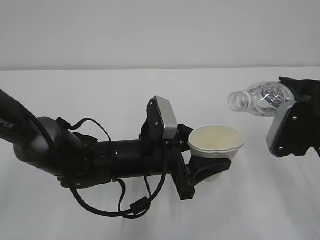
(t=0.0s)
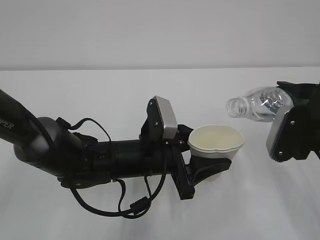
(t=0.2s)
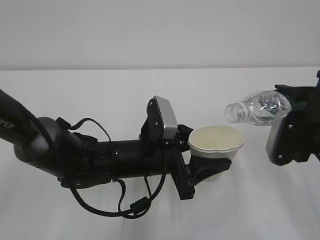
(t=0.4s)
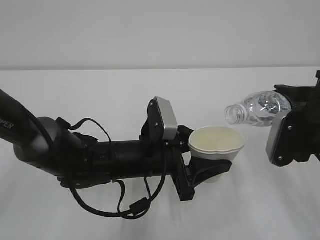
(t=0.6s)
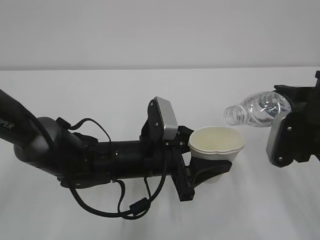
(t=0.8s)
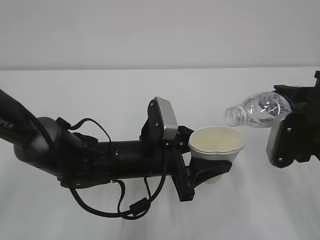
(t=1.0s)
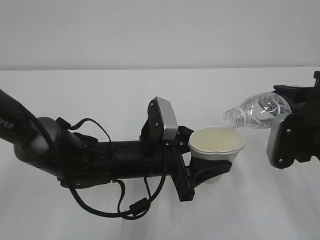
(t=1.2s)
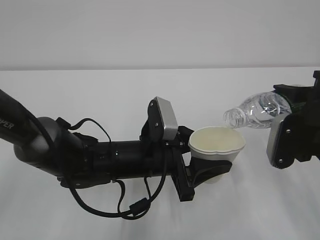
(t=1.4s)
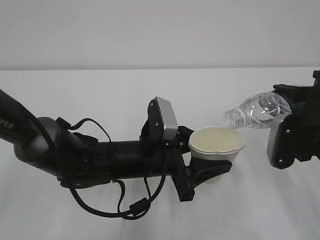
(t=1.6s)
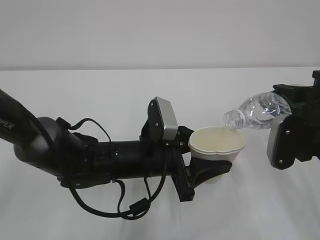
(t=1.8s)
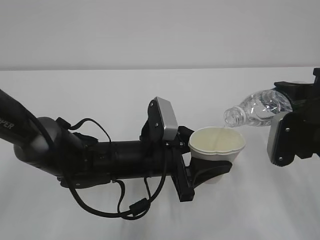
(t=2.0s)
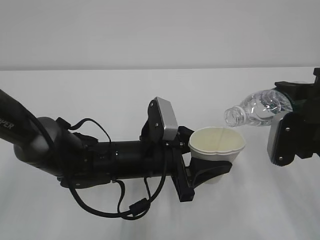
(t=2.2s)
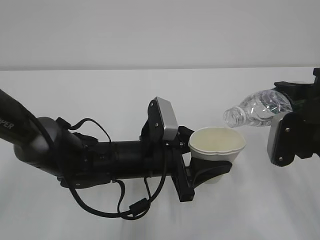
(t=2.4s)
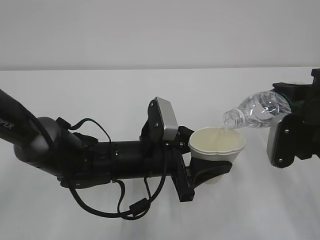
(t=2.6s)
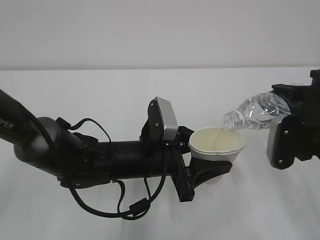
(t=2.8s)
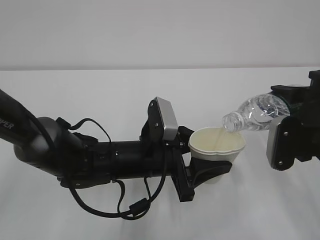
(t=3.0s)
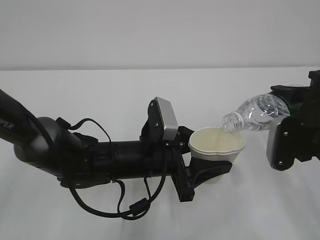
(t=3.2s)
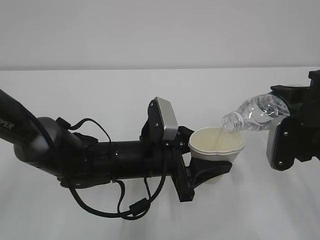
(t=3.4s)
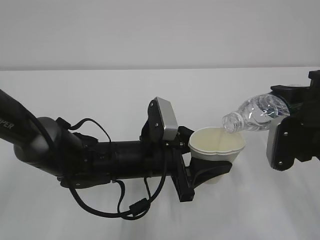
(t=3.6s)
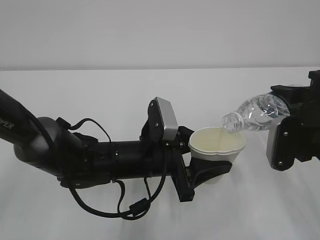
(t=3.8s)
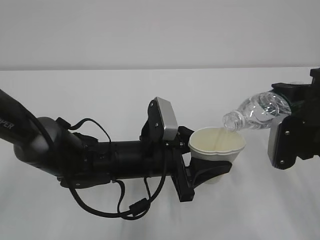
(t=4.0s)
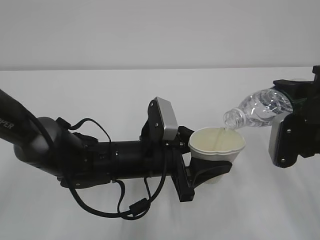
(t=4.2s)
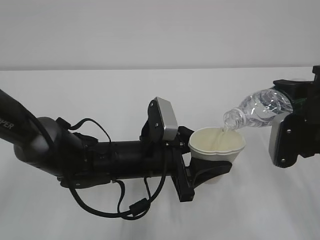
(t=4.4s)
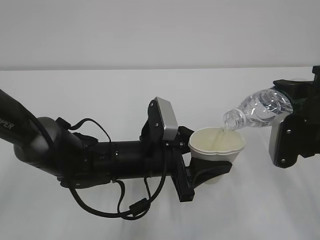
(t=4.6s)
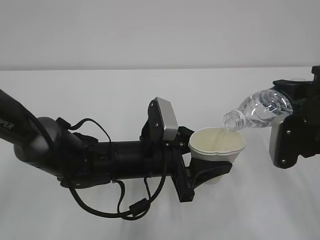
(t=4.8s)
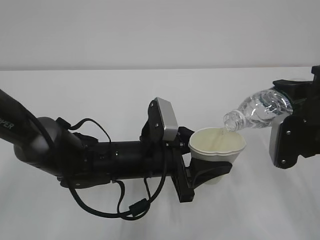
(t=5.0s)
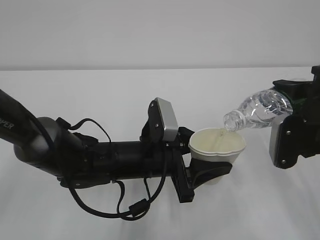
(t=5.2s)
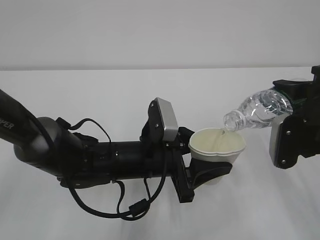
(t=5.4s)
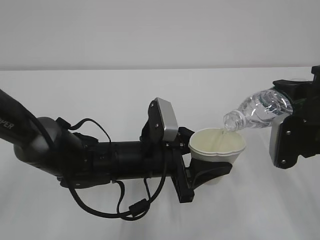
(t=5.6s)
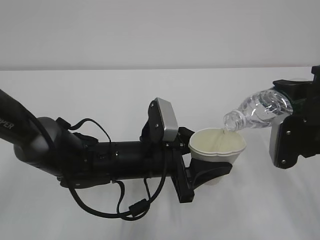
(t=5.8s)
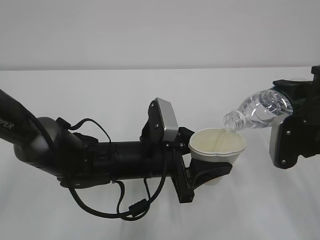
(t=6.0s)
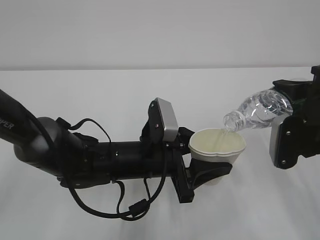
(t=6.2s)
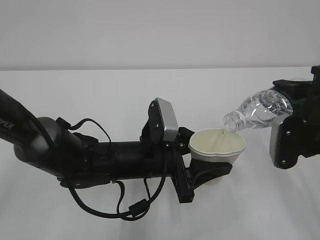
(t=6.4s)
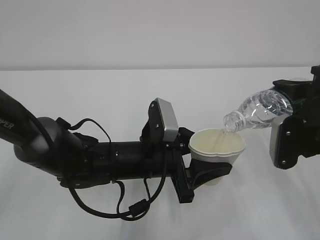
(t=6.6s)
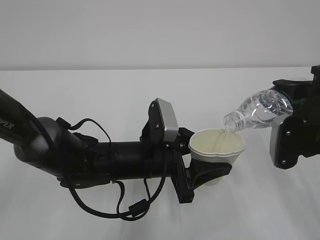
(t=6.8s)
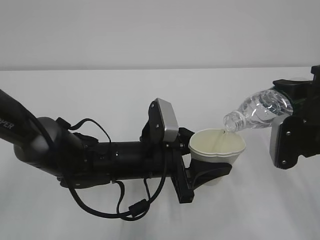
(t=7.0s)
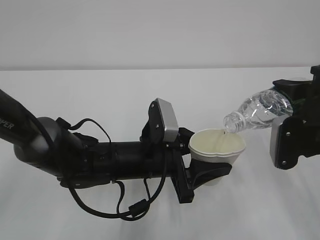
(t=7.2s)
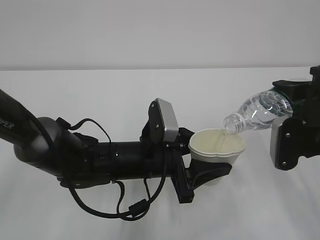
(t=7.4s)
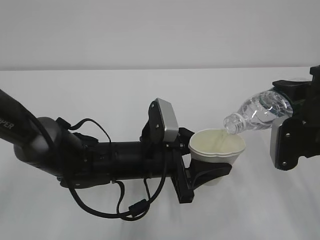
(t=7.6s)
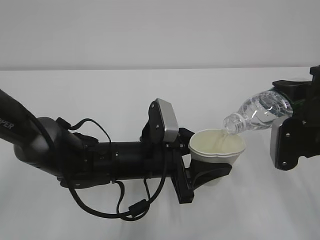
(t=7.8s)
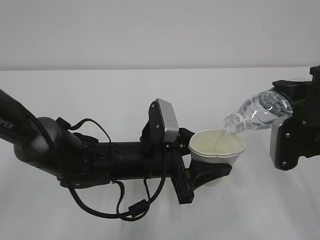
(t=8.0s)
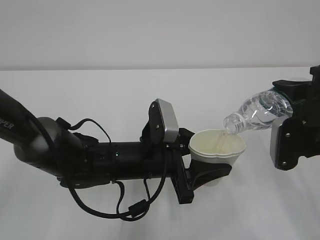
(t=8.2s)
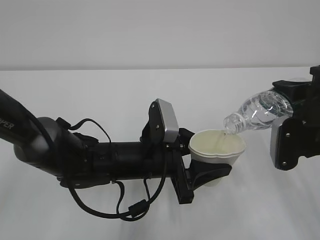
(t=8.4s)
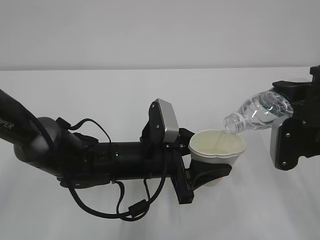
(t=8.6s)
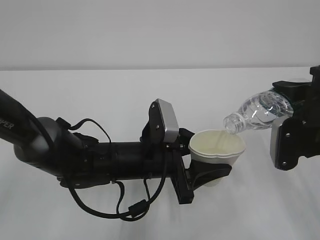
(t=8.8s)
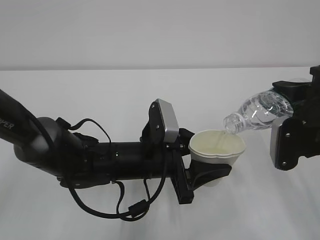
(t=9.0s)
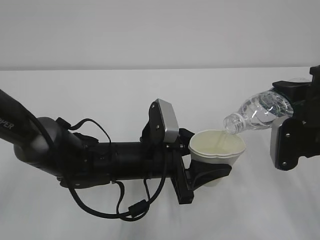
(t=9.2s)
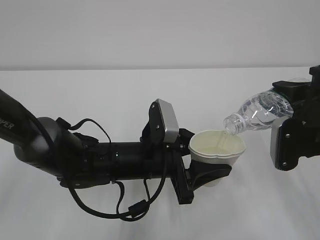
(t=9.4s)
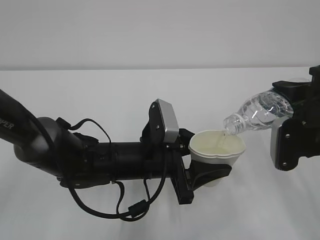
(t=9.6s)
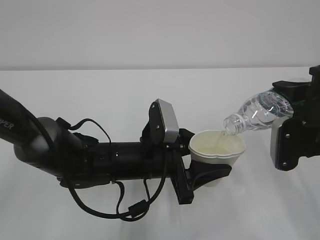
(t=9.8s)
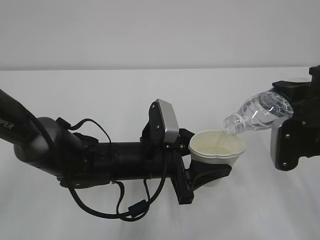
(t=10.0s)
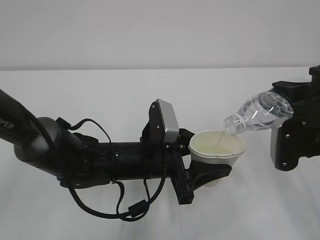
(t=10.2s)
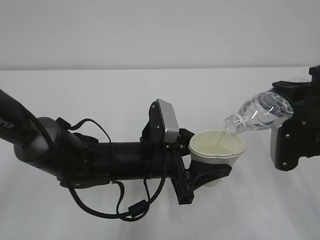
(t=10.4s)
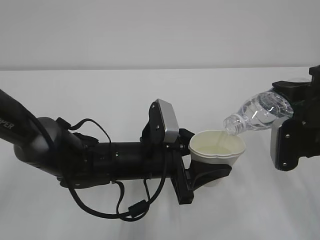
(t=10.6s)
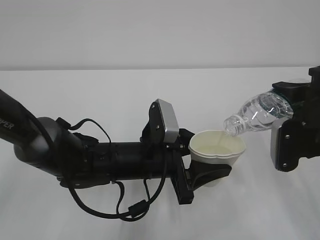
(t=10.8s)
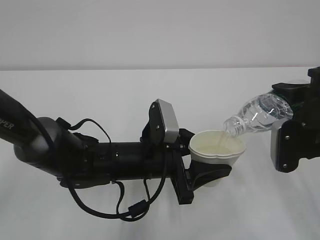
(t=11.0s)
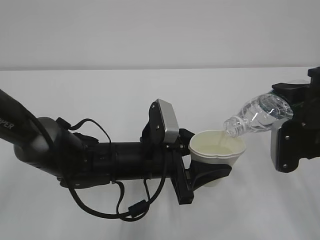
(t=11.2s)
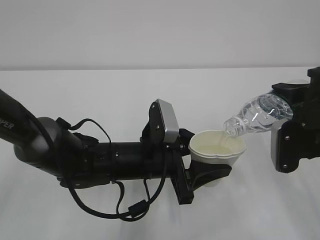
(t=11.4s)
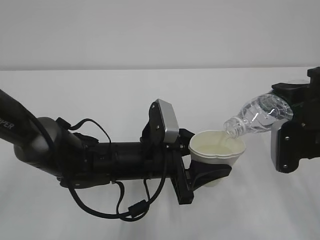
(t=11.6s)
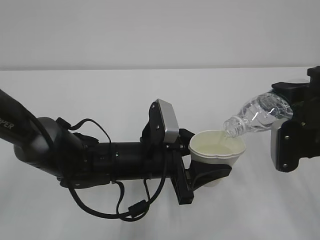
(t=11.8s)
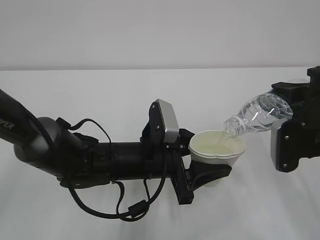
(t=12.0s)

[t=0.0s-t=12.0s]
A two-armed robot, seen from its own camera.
t=0.0s to t=1.6s: The grippers stay close to where they were, moving slightly.
t=1.6s to t=4.4s: The two grippers keep their place.
t=4.4s to t=10.4s: Neither gripper changes place.
t=10.4s to t=12.0s: Both grippers stay about where they are.

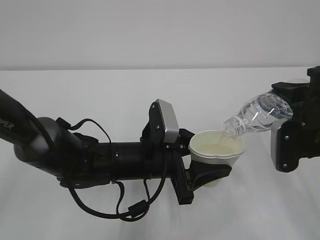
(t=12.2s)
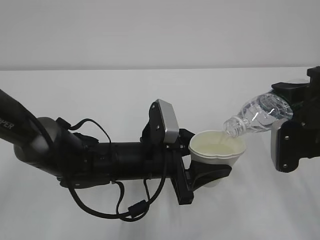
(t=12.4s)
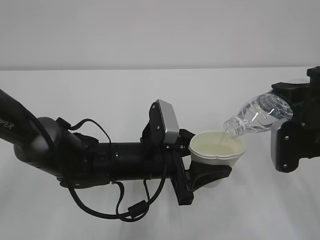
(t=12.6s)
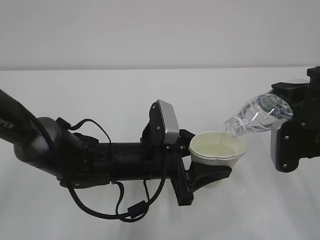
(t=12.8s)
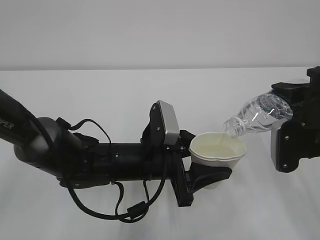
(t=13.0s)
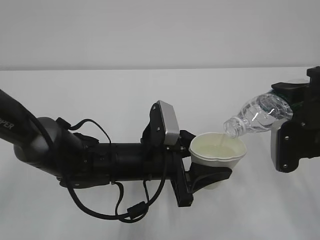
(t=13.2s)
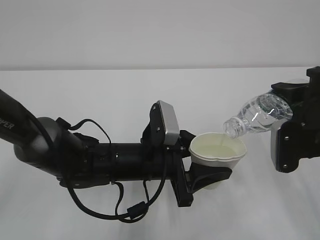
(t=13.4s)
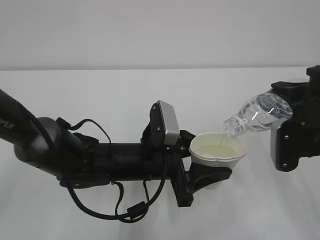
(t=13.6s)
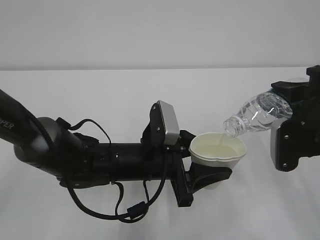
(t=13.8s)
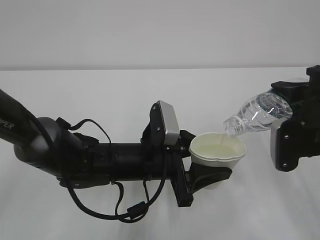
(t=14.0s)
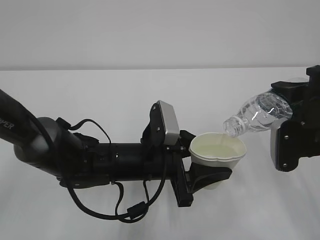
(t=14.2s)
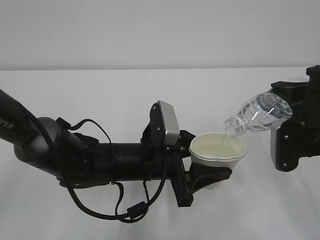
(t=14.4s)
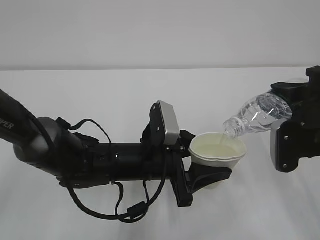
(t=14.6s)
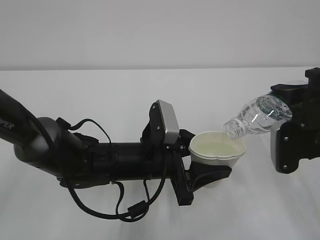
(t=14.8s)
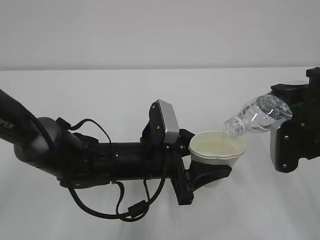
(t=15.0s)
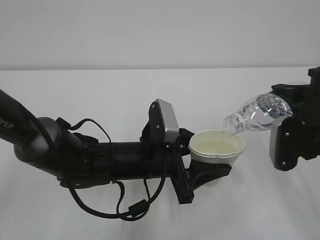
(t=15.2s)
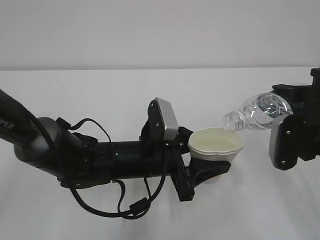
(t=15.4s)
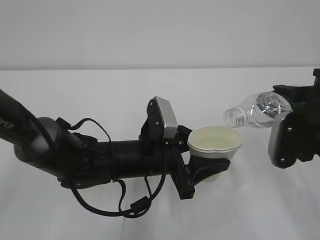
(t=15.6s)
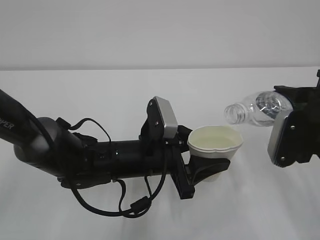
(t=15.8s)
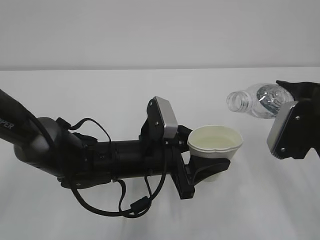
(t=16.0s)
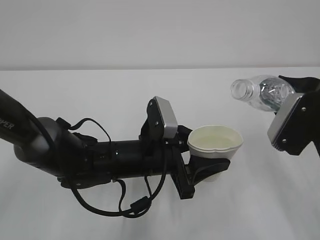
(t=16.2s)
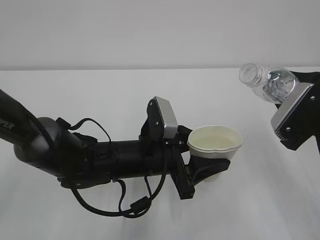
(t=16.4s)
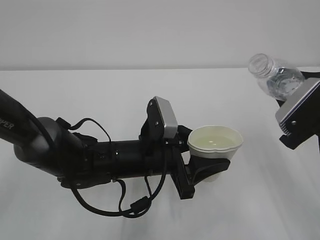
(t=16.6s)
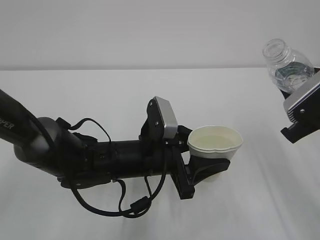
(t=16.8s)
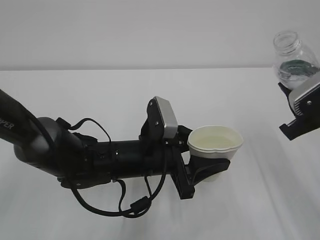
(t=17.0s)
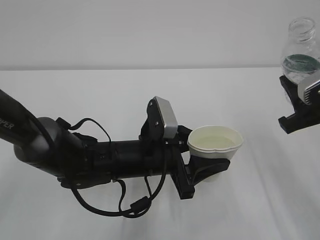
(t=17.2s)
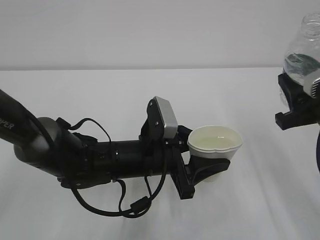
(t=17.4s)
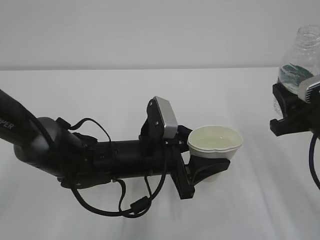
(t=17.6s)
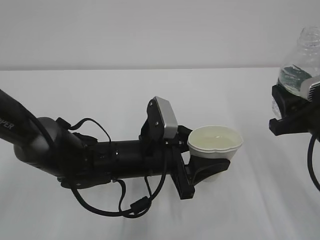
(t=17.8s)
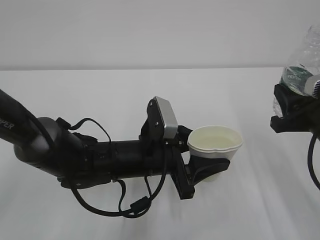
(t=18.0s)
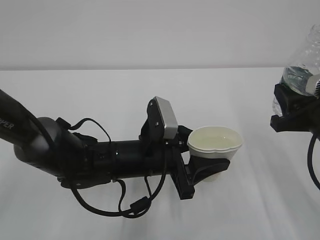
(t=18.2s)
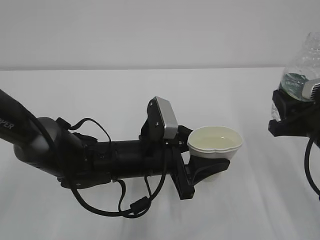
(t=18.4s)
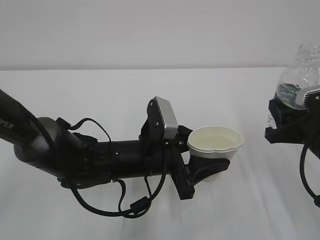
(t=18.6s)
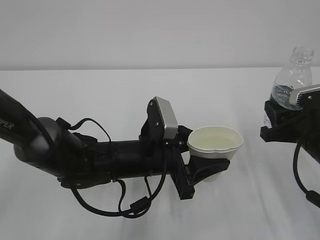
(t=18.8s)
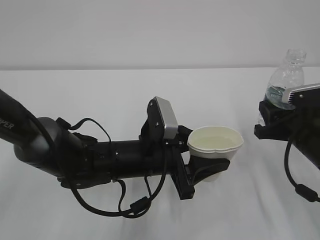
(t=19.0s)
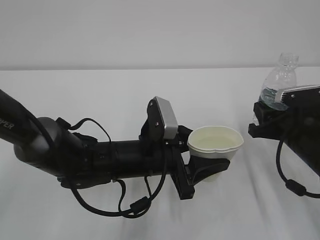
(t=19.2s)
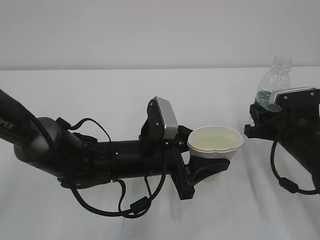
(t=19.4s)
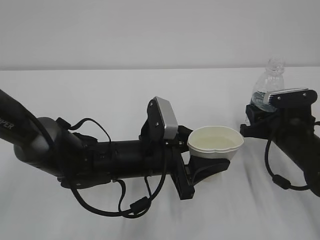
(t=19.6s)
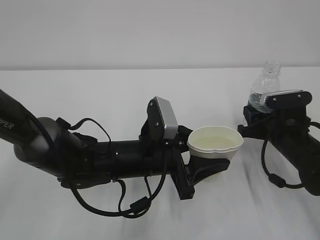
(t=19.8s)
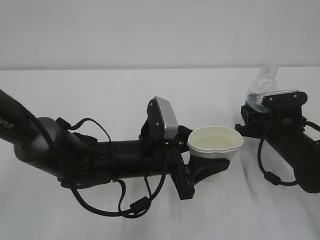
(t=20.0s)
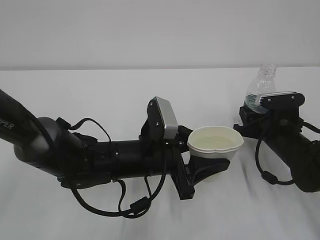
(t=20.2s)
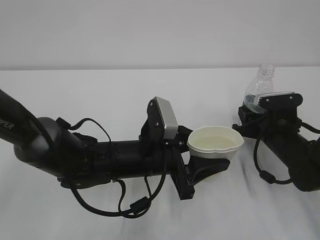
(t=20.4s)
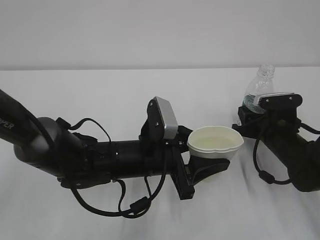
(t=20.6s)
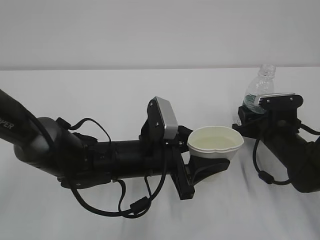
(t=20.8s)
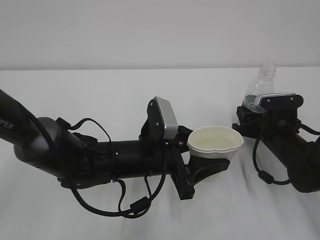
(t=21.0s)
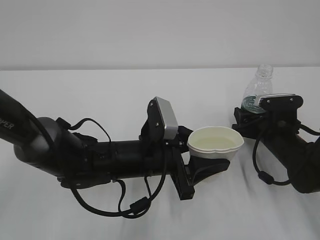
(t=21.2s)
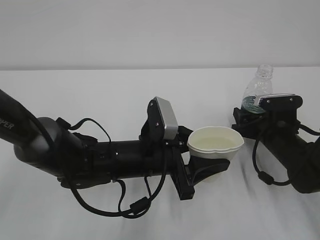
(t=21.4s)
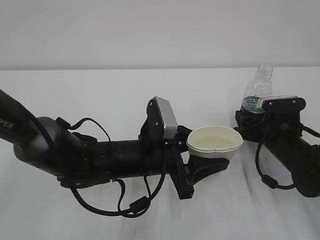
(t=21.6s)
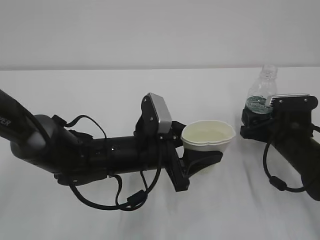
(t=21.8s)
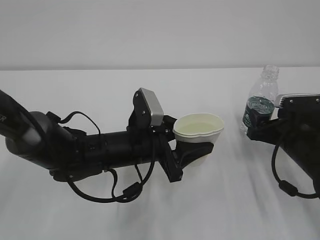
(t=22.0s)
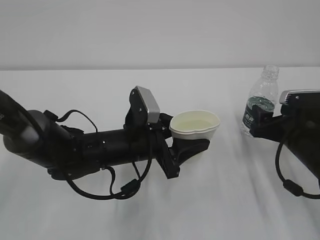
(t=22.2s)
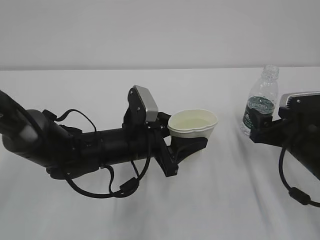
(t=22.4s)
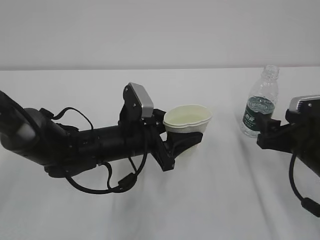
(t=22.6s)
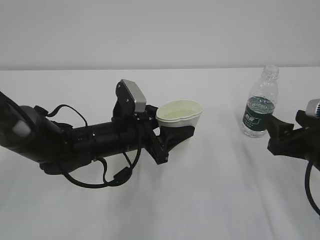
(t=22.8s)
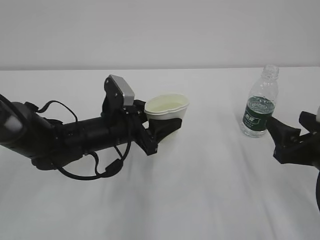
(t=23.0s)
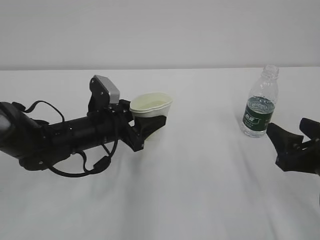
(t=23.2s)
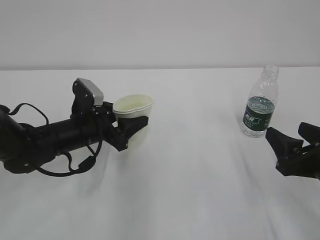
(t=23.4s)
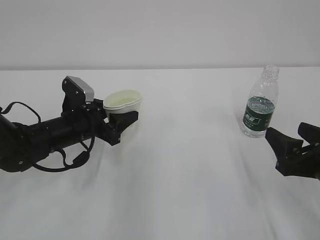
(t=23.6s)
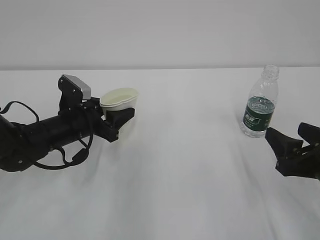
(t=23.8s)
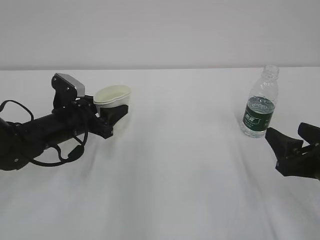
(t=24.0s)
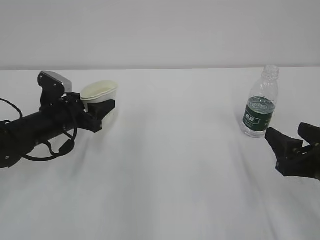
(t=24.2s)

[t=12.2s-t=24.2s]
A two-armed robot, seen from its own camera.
t=12.2s to t=15.2s: The two grippers keep their place.
t=18.2s to t=19.8s: The right gripper heads downward and forward, covering roughly 10 cm.
t=19.8s to t=21.2s: The right gripper opens.
t=21.2s to t=22.6s: The right gripper moves backward and upward, some 10 cm.
t=22.6s to t=24.2s: The right gripper goes about 5 cm backward. Meanwhile the left gripper shifts roughly 15 cm to the left and forward.
